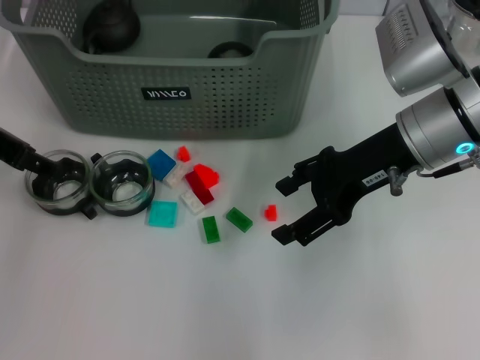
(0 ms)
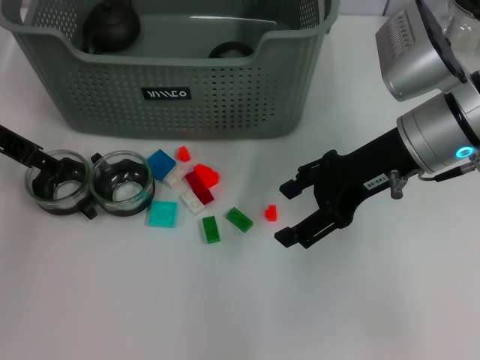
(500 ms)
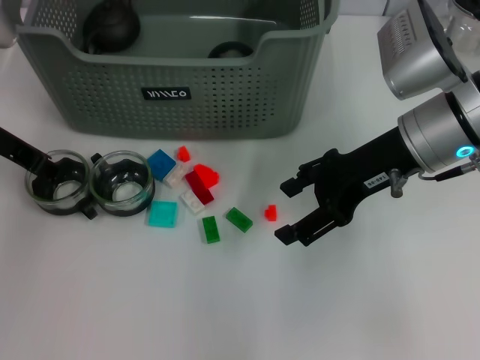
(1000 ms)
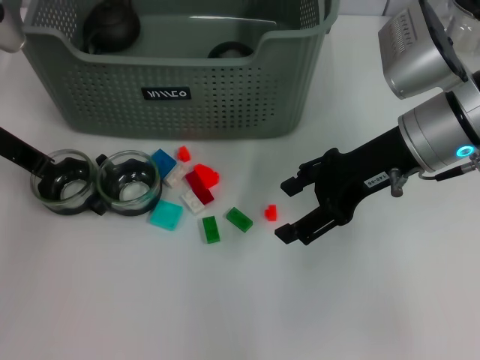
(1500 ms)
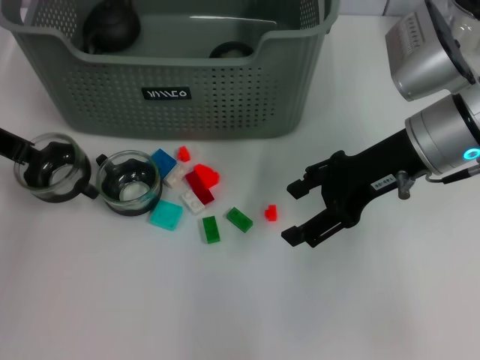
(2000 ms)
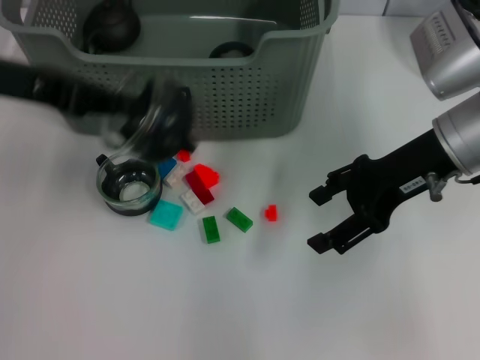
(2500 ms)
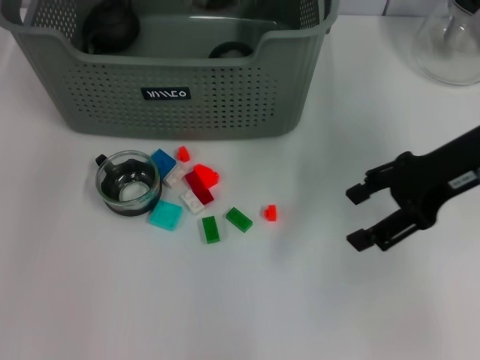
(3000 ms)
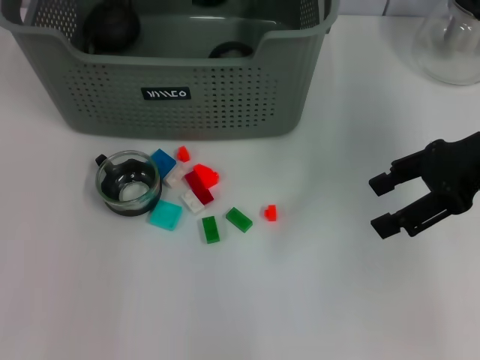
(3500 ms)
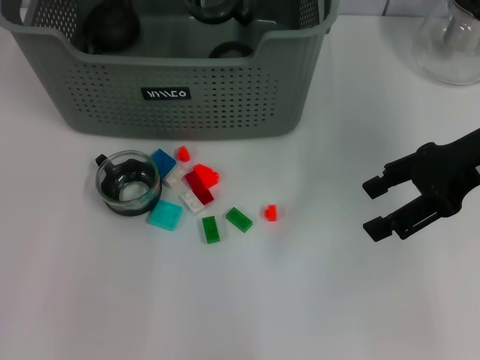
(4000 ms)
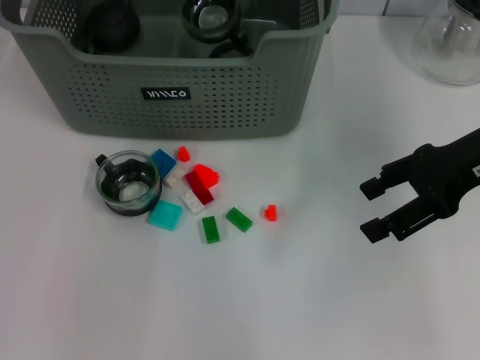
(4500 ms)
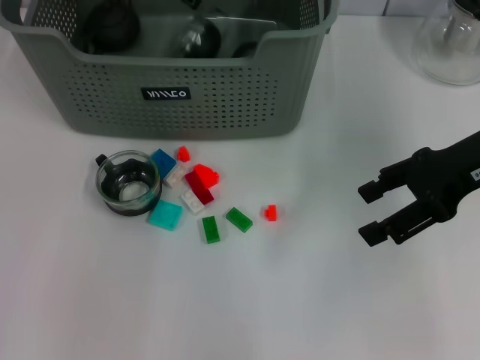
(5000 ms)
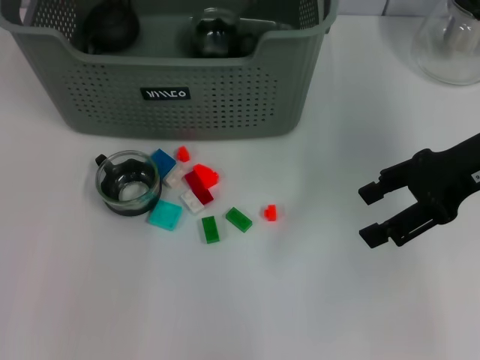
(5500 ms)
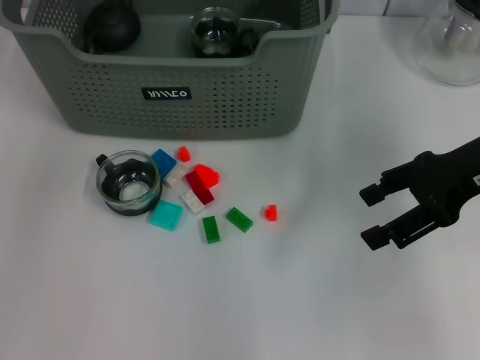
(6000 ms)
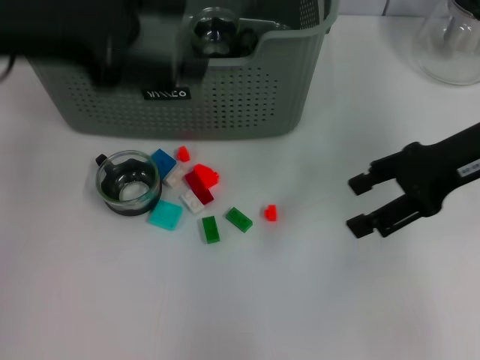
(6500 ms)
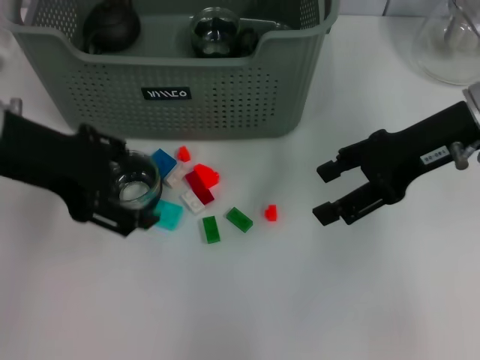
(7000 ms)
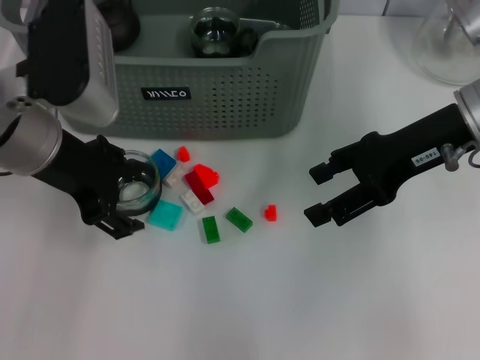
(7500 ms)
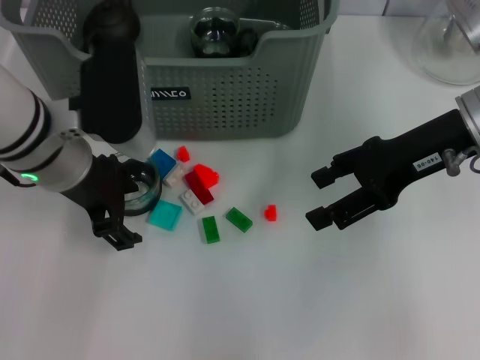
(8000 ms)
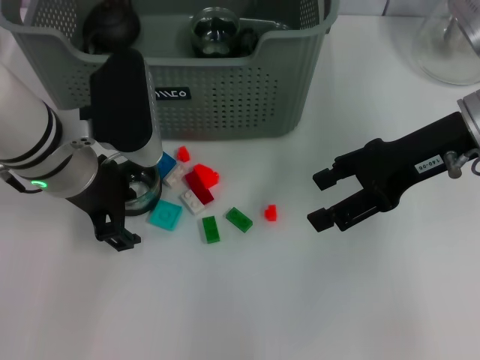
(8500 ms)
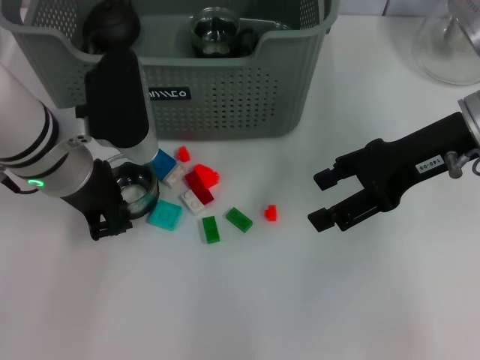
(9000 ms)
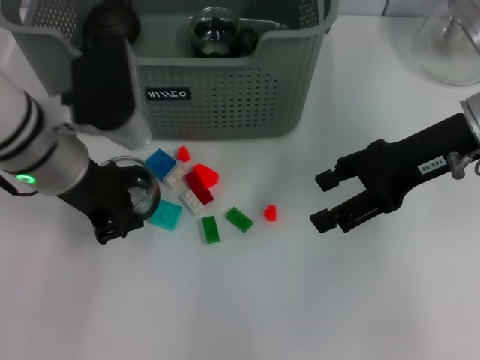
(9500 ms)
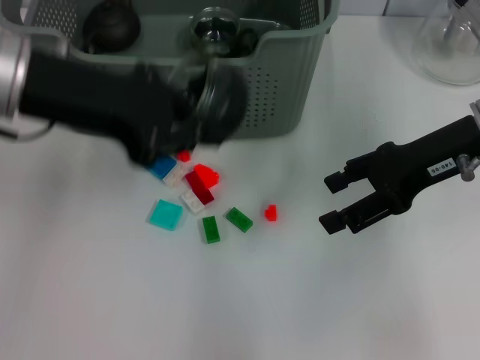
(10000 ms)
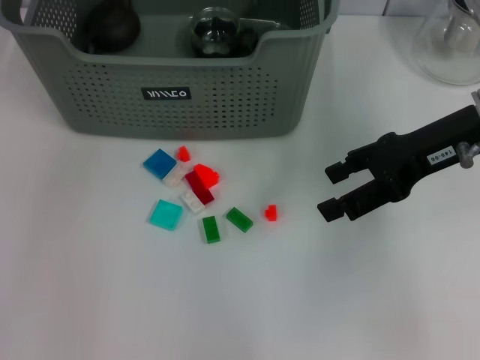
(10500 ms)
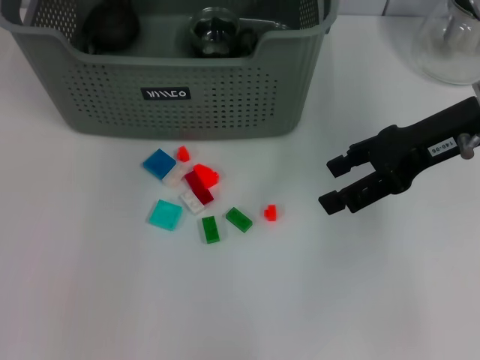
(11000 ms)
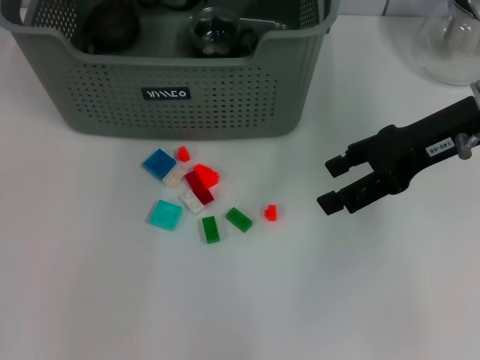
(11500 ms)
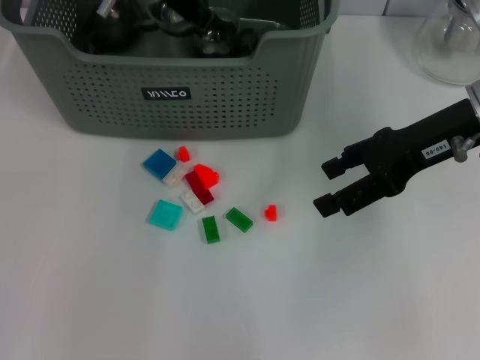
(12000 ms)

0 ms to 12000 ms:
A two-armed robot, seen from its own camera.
Task of the whole recording: pick up the teacup on the table and place it into the storage bin, pick up the block on the table and place it into the storage bin.
Step, 2000 ms to 5000 ms: Place the cup in the storage box with left gripper.
Step, 6000 ms to 9000 ms: Grasp the cup with left gripper.
0 ms to 2000 ms: The left gripper closes up.
2000 ms to 4000 ms: The right gripper moves to the right, approximately 10 cm. The left gripper goes roughly 25 cm to the right, forward and upward.
4000 ms to 6000 ms: The left gripper moves backward, to the left and upward, approximately 15 cm, and opens up.
6000 ms to 8000 ms: The left gripper shifts some 20 cm downward and backward.
8000 ms to 10000 ms: The left gripper travels upward by roughly 10 cm, and closes.
10000 ms to 12000 ms: The left gripper goes about 20 cm forward and to the right.

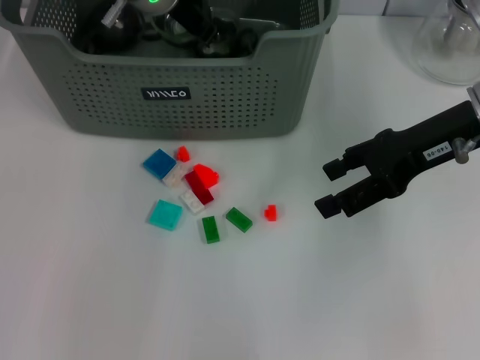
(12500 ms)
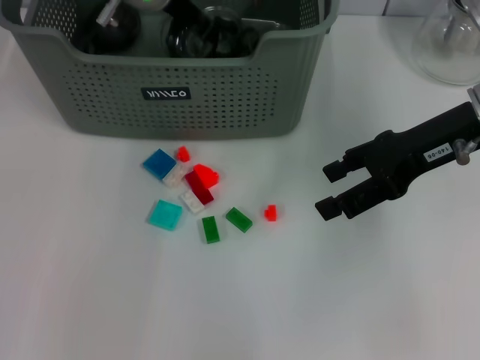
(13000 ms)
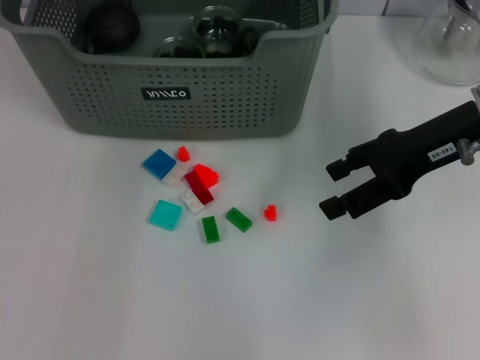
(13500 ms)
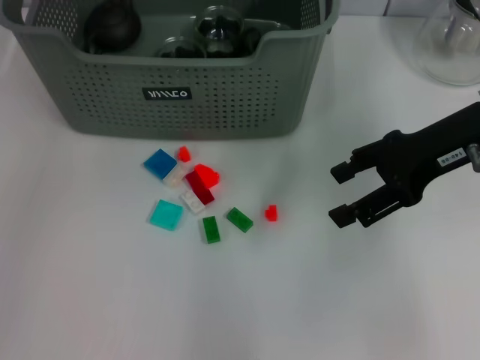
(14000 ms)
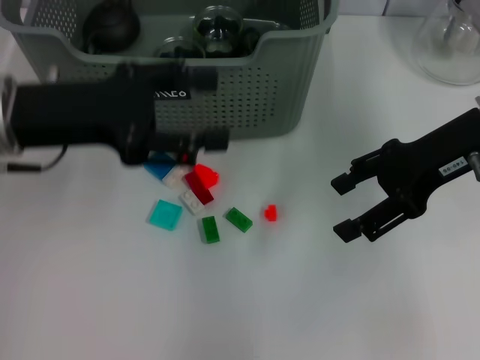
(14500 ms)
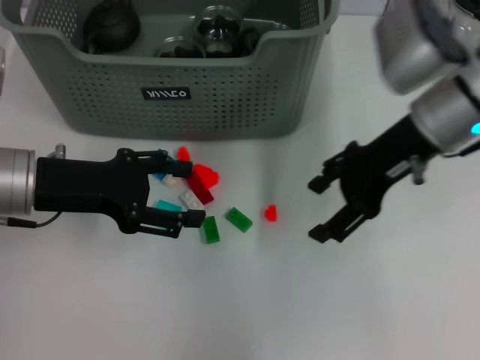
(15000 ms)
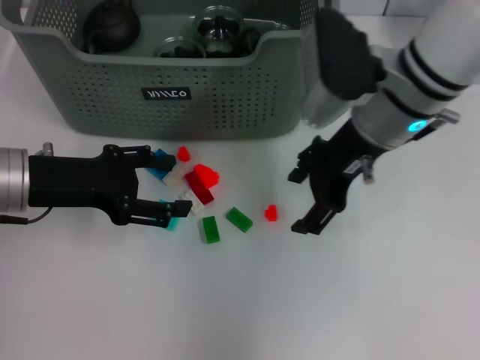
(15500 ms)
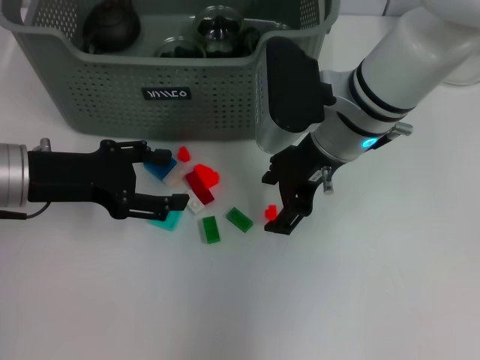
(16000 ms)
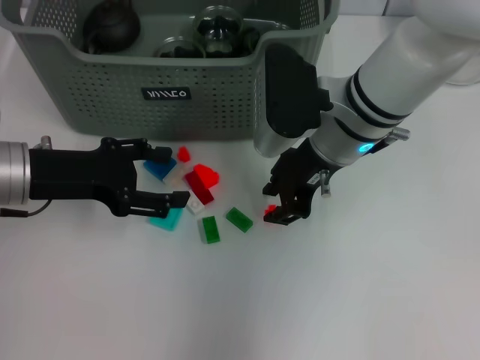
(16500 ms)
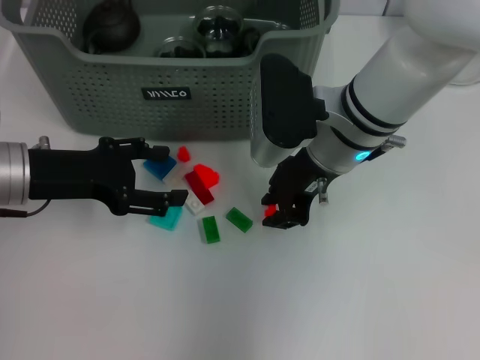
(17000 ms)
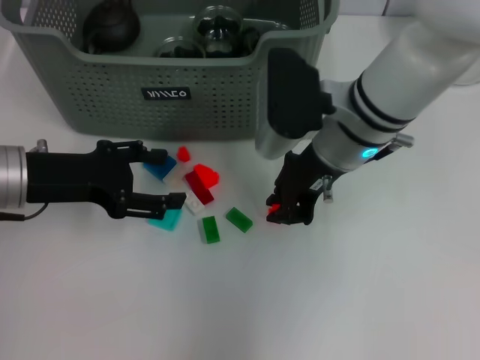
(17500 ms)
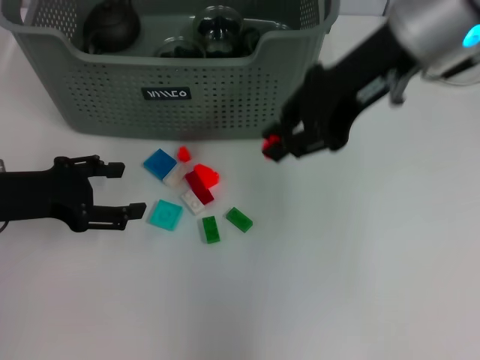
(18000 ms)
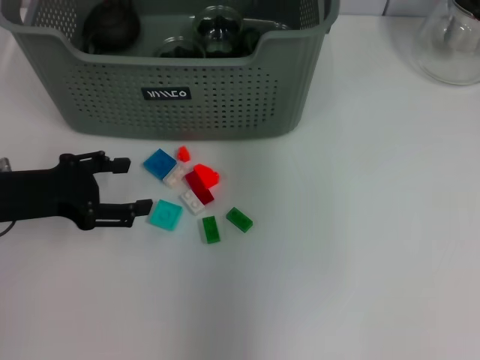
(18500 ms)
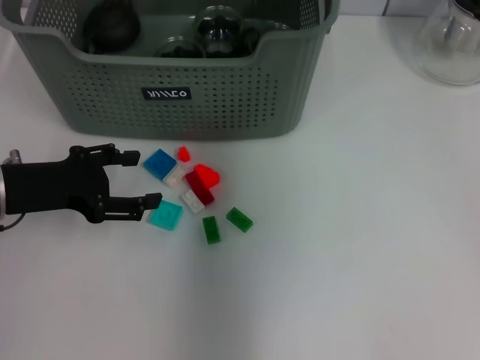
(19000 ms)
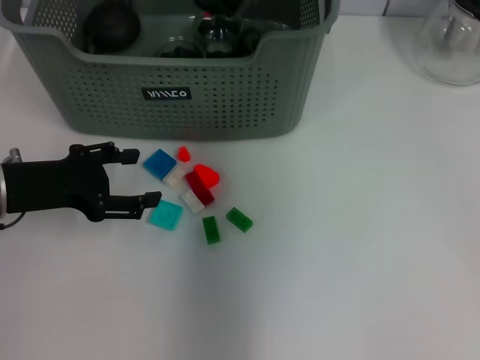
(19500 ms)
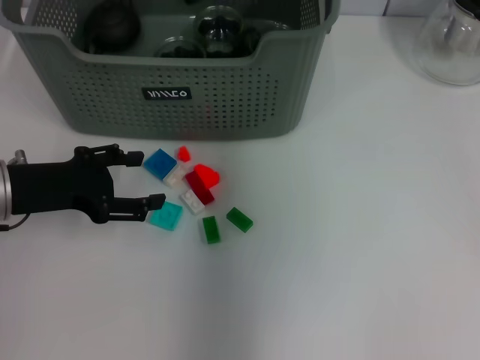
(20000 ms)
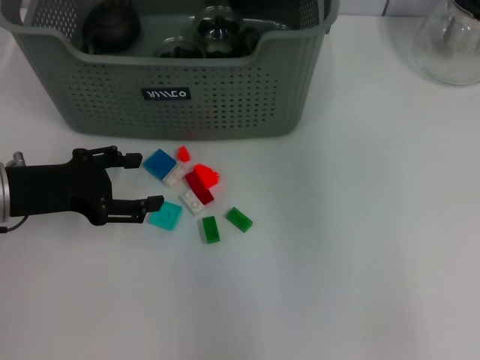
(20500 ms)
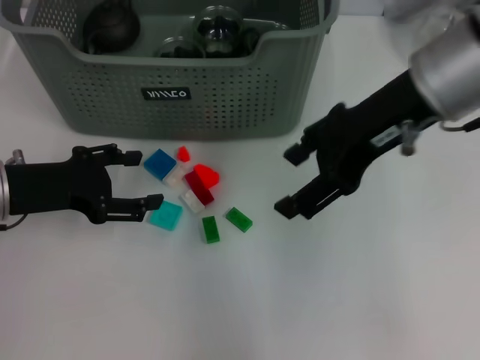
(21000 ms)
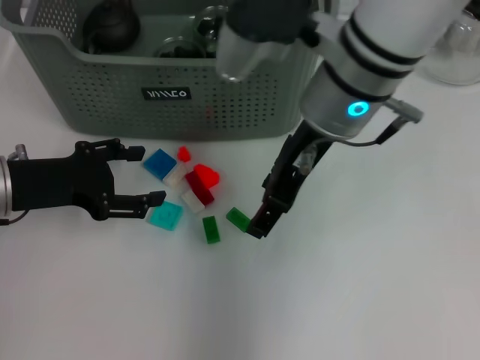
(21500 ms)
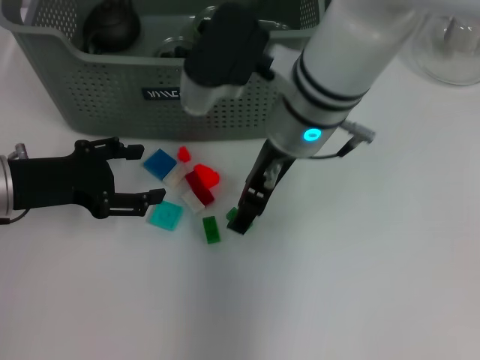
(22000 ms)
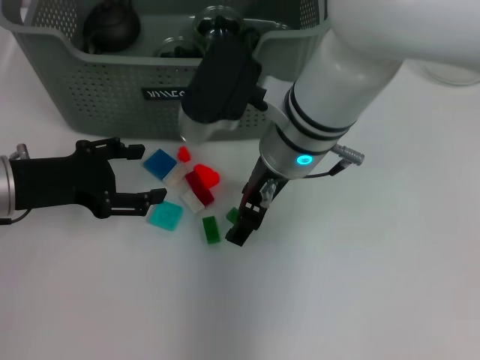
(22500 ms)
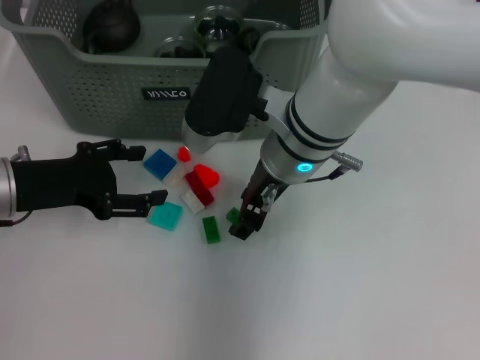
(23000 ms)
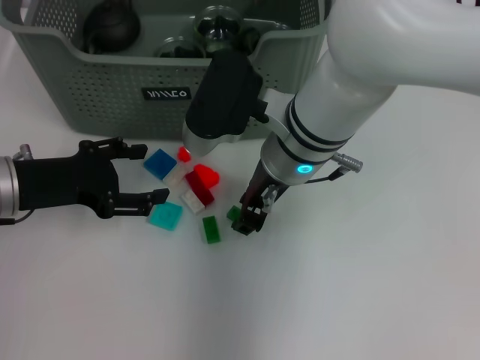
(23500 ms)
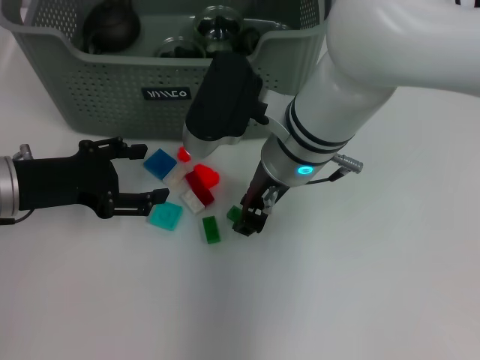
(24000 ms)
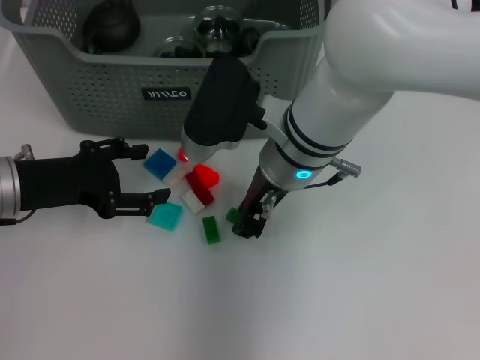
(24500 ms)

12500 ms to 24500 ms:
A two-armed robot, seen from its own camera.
Task of the whole recording: pick up the teacup on the table and place it into the storage bin, pick up the block on the table and place it into the storage bin.
Step, 13500 ms to 17000 ms: Grasp the orange block with right gripper.
Step, 17500 ms to 19500 ms: Place the orange block in the storage box with right gripper.
12500 ms to 14500 ms: The left gripper goes approximately 20 cm backward and to the left, and opens up.
14500 ms to 16500 ms: The left gripper moves downward, about 5 cm. Meanwhile the right gripper heads to the left, covering some 15 cm.
16500 ms to 18500 ms: The right gripper goes approximately 20 cm upward, and closes up.
18500 ms to 20500 ms: The right gripper shifts approximately 5 cm backward, and opens.
20500 ms to 22500 ms: The right gripper travels downward and to the left by approximately 20 cm.
22500 ms to 24500 ms: The right gripper closes its fingers.

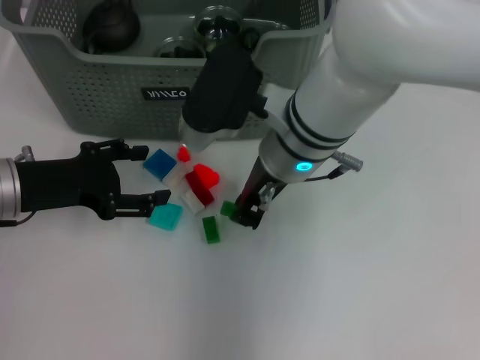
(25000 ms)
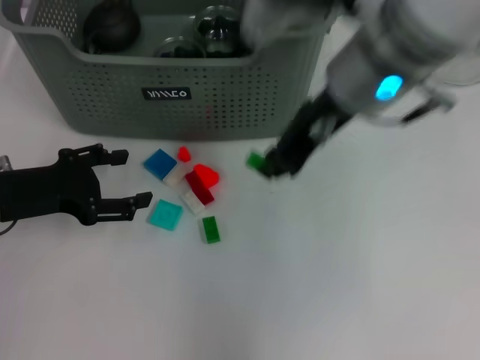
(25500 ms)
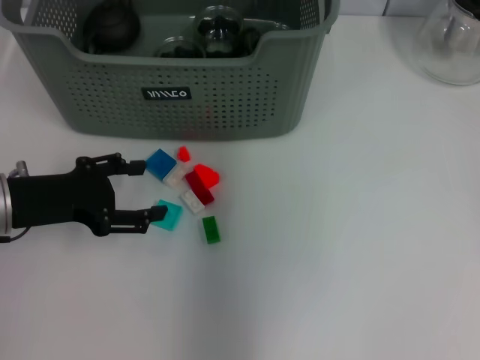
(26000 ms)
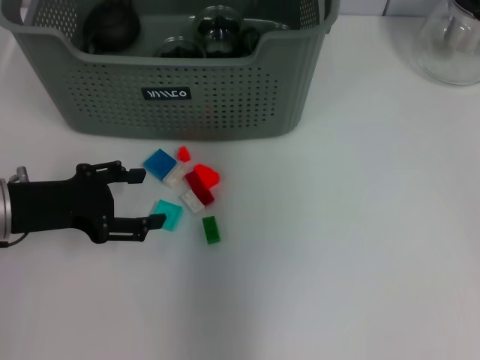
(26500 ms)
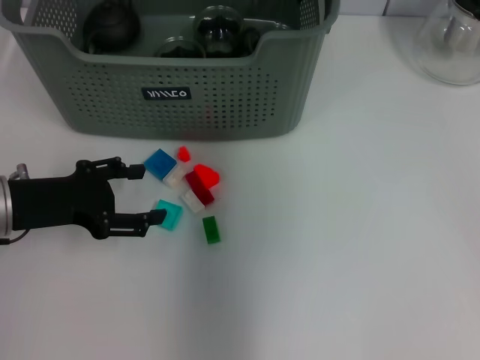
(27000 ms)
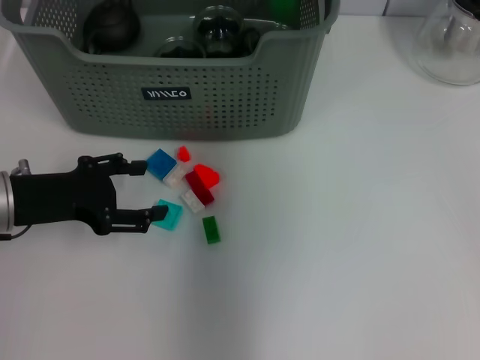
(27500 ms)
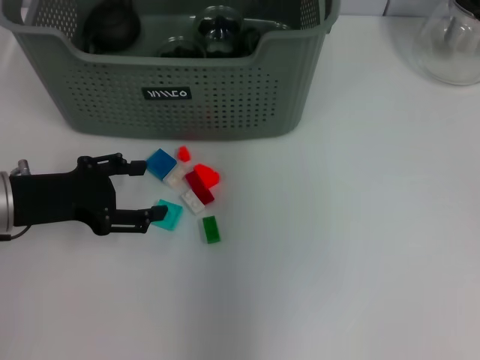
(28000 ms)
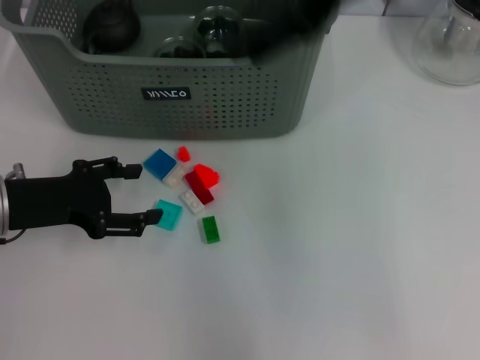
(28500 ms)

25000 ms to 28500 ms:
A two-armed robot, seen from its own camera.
Task of the whole recording: pick up the teacup on the table and place it into the storage bin, pick up the block on the table and place it into the storage bin.
Step, 25000 ms to 27500 ms: Place the green block in the storage box with right gripper.
25000 ms to 27000 ms: The right gripper shifts approximately 20 cm forward, upward and to the right.
27000 ms to 28500 ms: The right gripper goes about 15 cm backward and upward, and opens its fingers.
